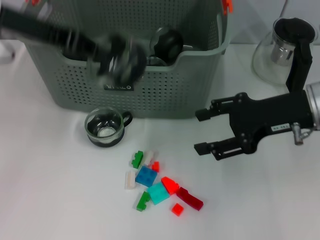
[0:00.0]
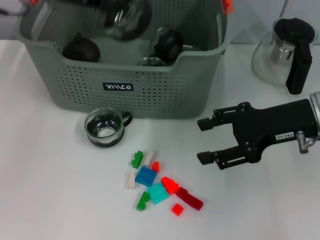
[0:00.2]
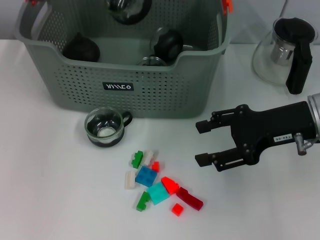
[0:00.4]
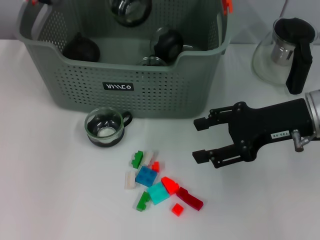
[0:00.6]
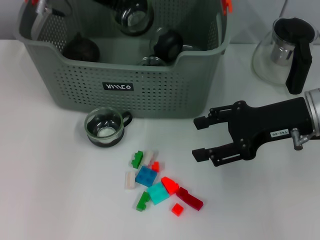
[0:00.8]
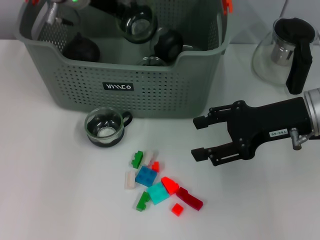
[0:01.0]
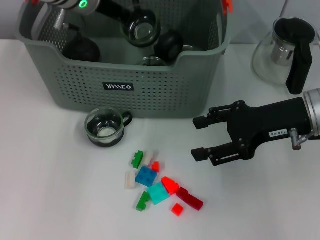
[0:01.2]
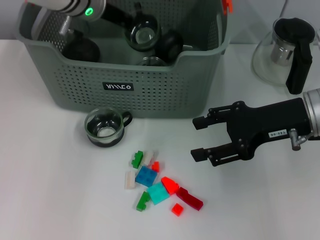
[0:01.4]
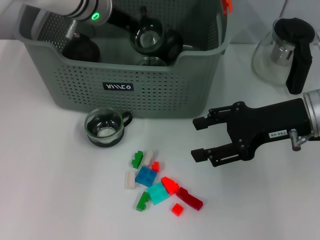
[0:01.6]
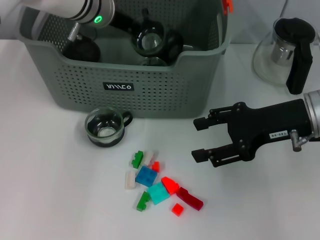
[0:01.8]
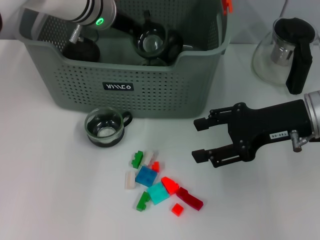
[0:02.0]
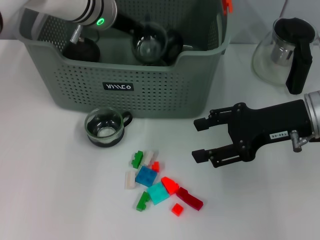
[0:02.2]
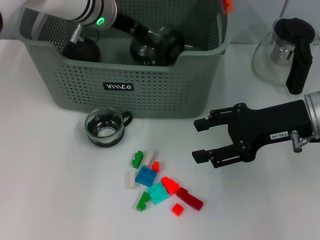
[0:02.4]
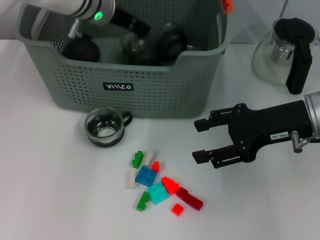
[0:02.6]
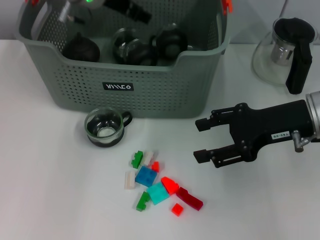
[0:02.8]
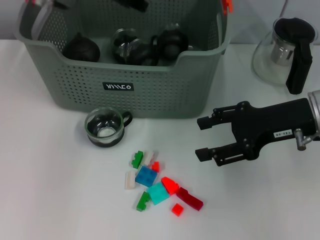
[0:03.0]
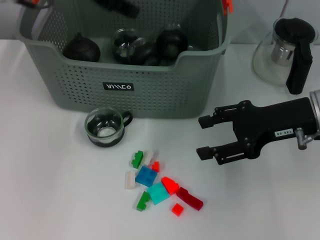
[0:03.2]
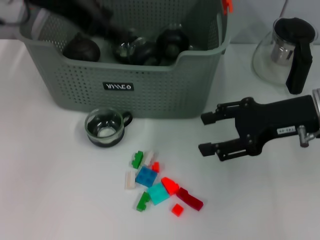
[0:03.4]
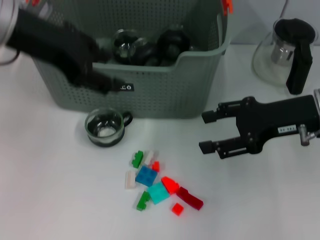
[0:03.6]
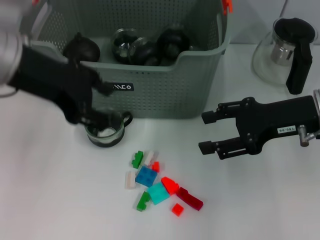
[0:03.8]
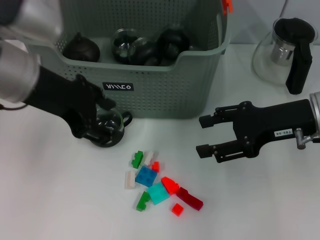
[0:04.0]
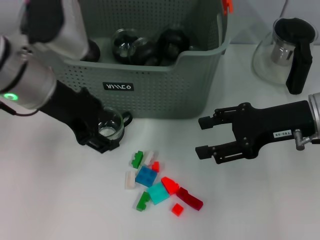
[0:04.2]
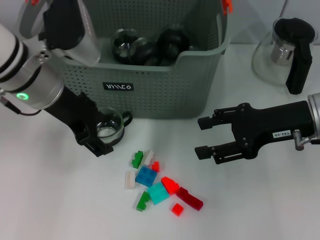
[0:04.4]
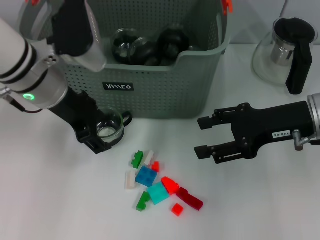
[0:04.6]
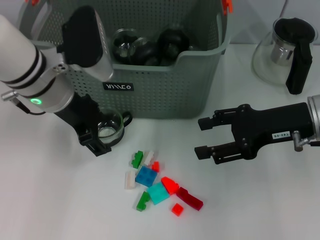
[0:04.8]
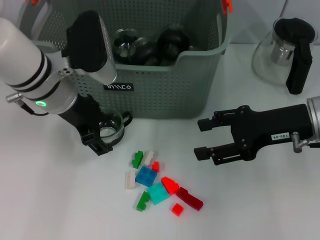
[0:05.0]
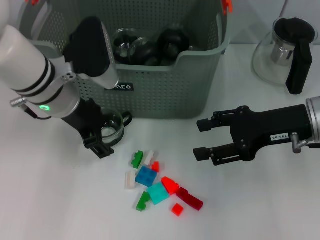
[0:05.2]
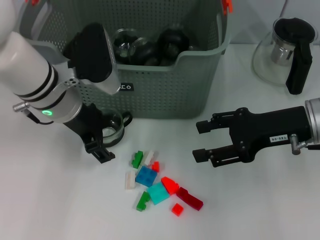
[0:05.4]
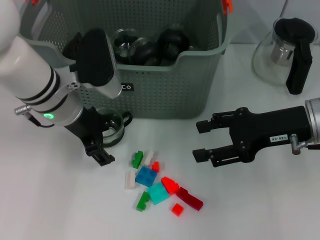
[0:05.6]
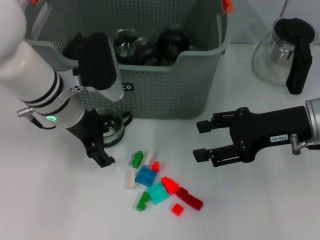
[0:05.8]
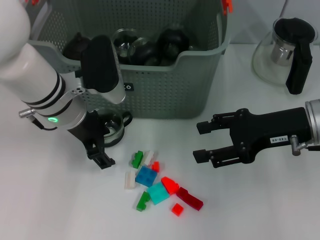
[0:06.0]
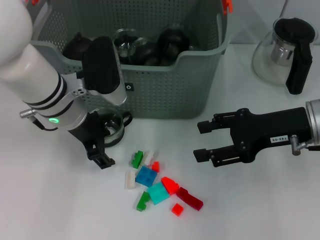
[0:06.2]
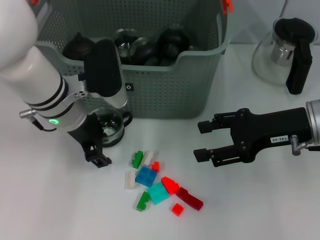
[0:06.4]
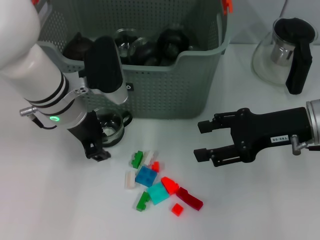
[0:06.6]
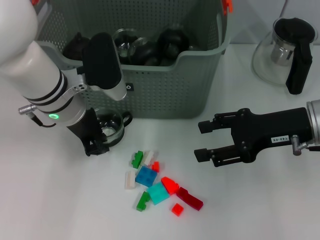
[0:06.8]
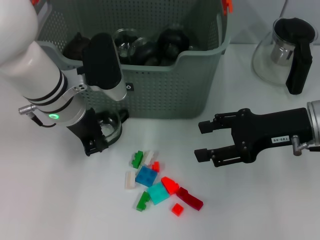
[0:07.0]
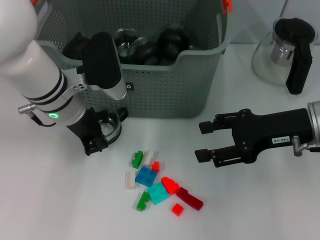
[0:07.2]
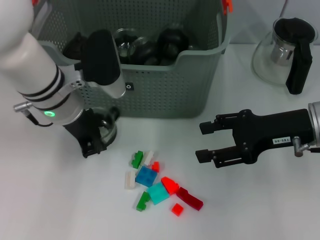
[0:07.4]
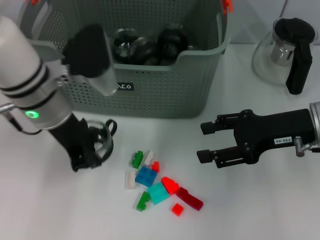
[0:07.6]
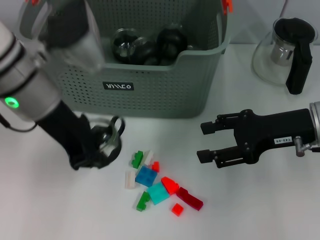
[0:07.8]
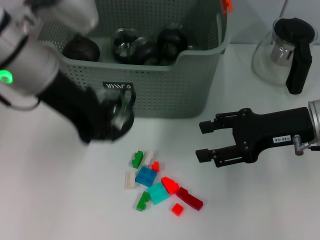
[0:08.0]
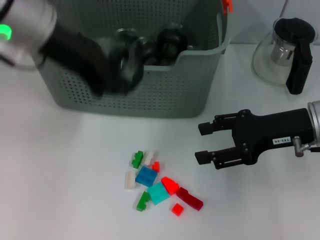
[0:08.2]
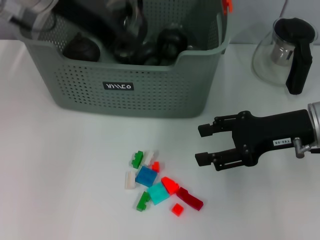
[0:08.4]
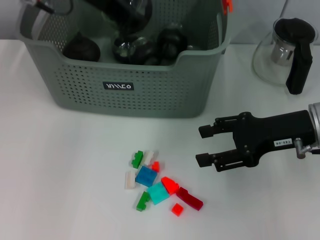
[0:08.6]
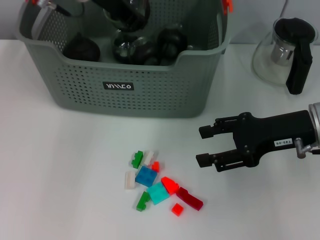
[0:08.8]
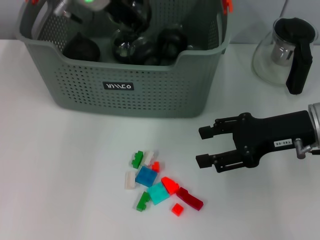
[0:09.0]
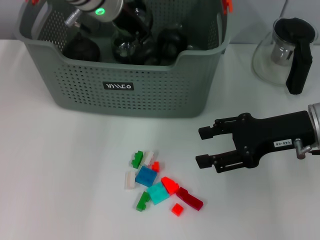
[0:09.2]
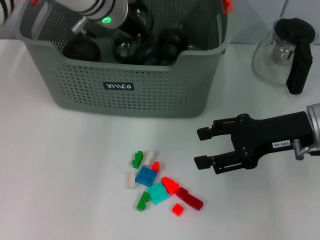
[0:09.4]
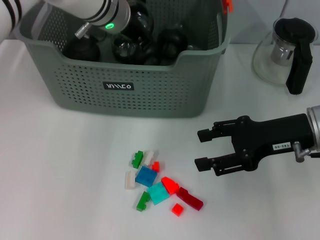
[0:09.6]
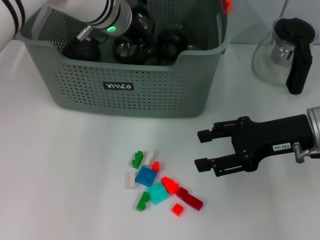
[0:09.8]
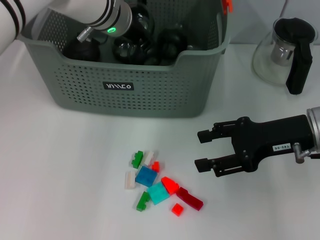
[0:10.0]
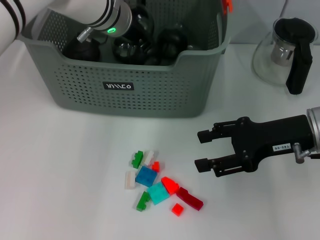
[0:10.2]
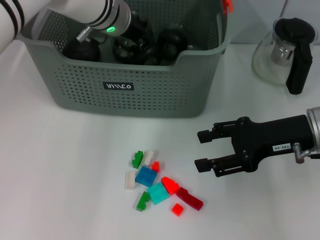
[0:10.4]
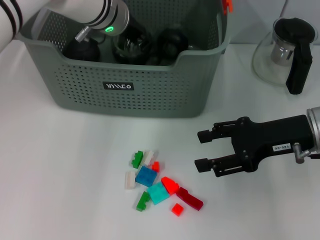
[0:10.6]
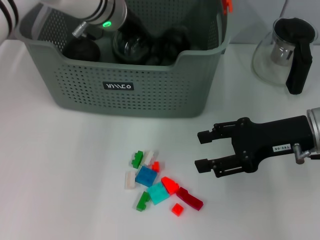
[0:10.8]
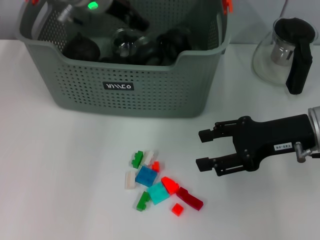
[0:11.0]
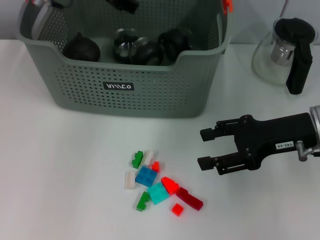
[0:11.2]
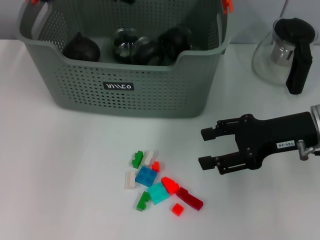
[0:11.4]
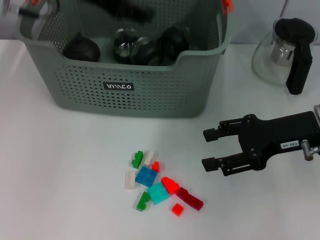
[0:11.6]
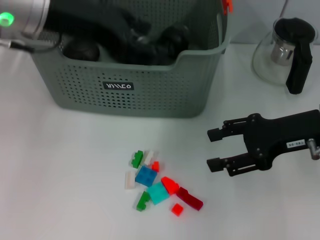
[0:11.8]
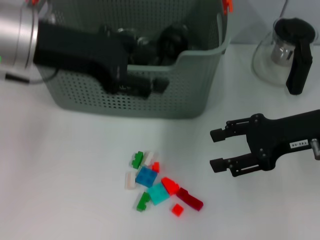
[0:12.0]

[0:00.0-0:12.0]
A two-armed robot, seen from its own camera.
Task of the whole recording: pick up the teacup on the table and place it into the storage bin, pick up the block on the table and place it into the storage bin.
Step, 0.0 to 2.4 s: Place the cup in the storage box with left gripper.
Step, 2.6 to 7.2 s: Grasp the cup with left gripper.
Step, 7.4 to 10.6 s: Place the cup in the storage box with left gripper.
0.0 to 1.6 s: The left gripper heads forward, to the right and downward, covering about 20 cm.
1.6 to 3.0 s: The left gripper travels upward by roughly 5 cm, and opens.
3.0 to 4.4 s: The left gripper goes roughly 15 cm backward and downward.
4.4 to 6.0 s: The left gripper shifts roughly 5 cm downward.
6.0 to 7.6 s: The left gripper closes its fingers.
7.6 to 9.0 s: The left gripper goes some 15 cm forward and upward.
9.0 to 10.4 s: The left gripper travels downward by roughly 5 cm.
10.4 to 12.0 s: The left gripper moves backward, to the left and upward, approximately 20 cm, and opens.

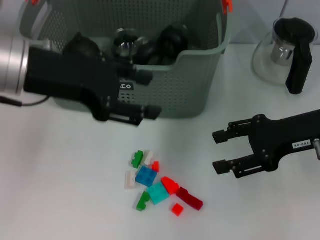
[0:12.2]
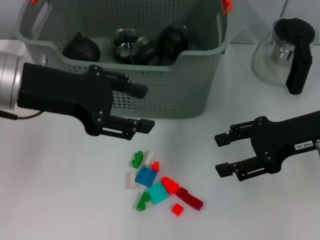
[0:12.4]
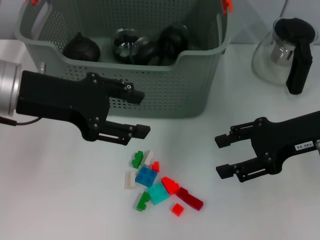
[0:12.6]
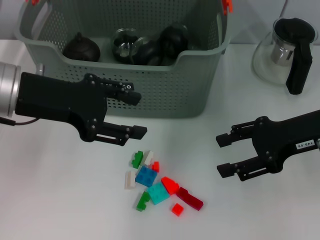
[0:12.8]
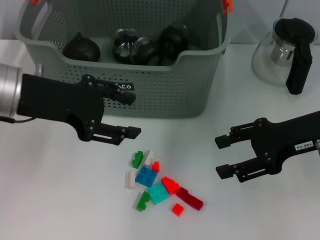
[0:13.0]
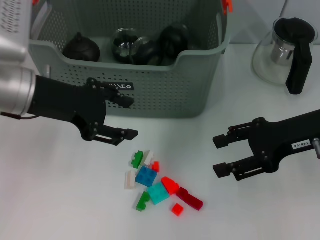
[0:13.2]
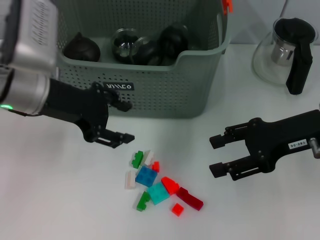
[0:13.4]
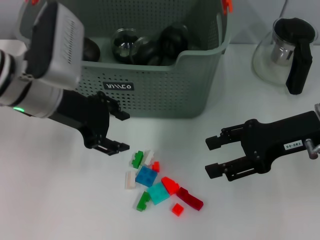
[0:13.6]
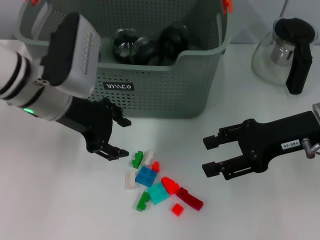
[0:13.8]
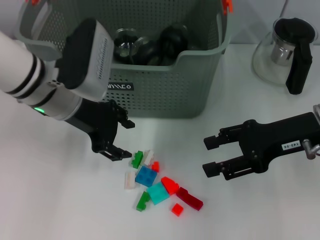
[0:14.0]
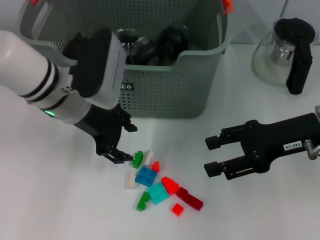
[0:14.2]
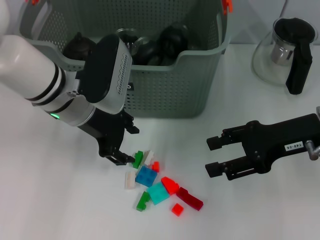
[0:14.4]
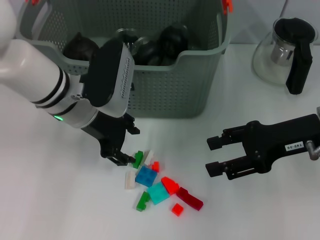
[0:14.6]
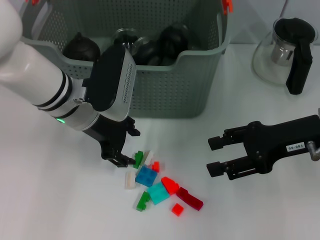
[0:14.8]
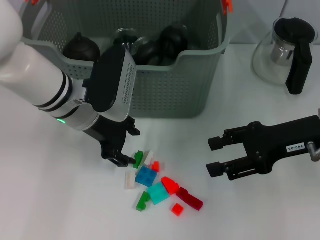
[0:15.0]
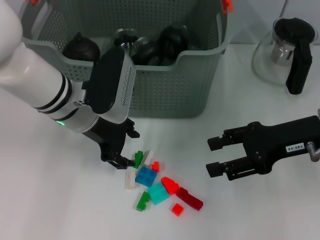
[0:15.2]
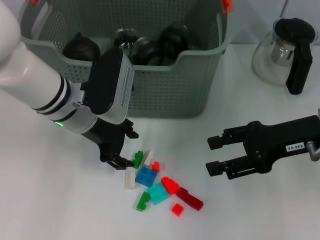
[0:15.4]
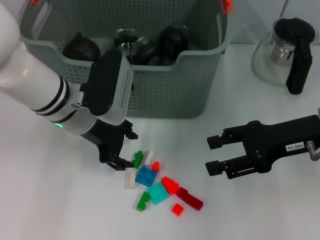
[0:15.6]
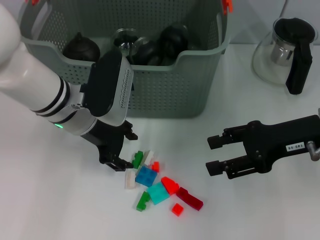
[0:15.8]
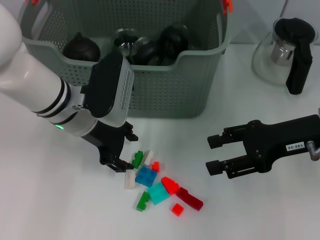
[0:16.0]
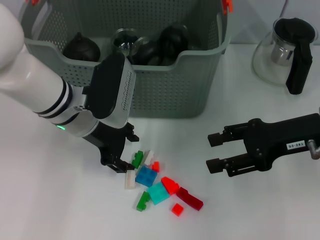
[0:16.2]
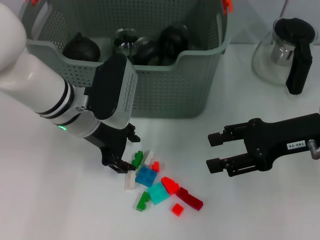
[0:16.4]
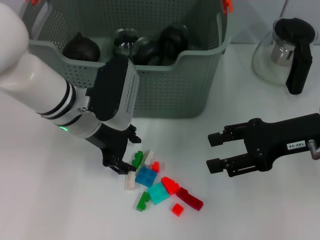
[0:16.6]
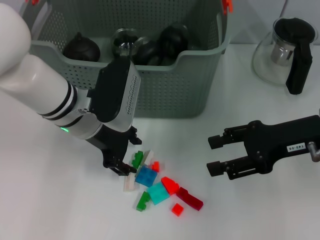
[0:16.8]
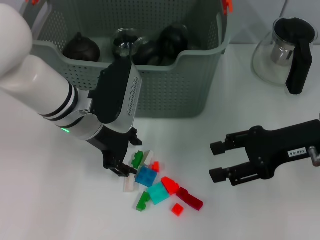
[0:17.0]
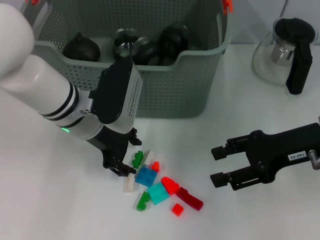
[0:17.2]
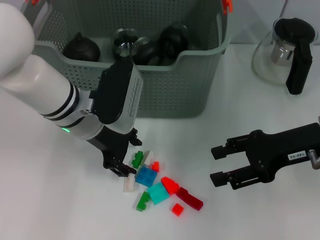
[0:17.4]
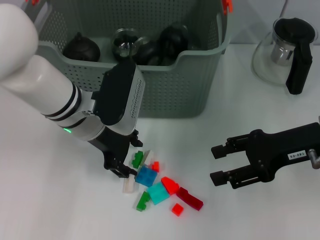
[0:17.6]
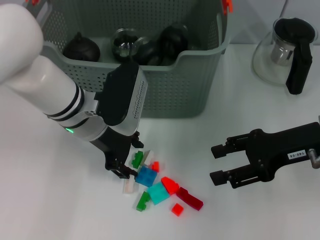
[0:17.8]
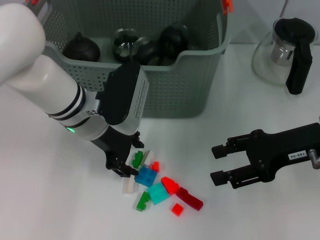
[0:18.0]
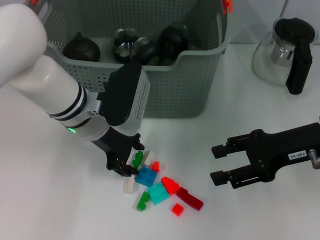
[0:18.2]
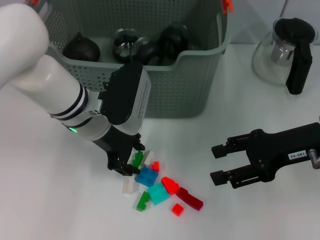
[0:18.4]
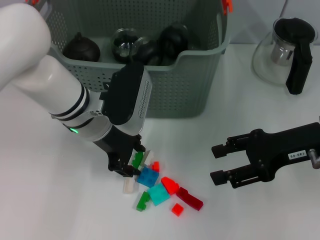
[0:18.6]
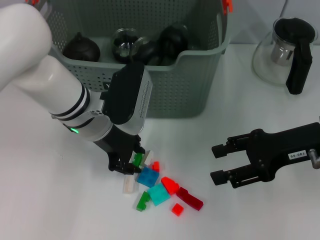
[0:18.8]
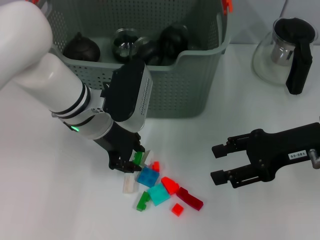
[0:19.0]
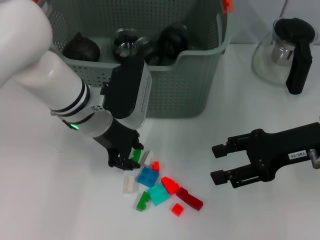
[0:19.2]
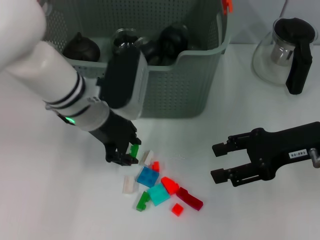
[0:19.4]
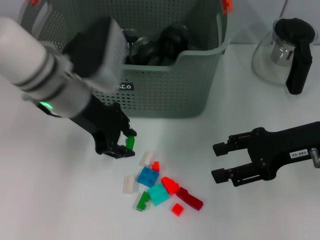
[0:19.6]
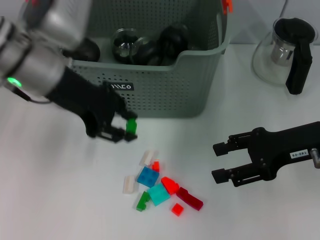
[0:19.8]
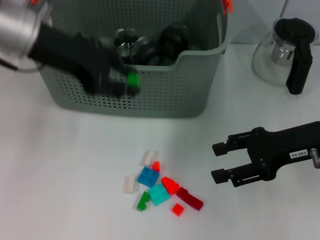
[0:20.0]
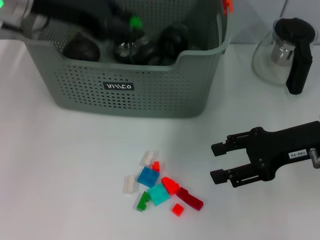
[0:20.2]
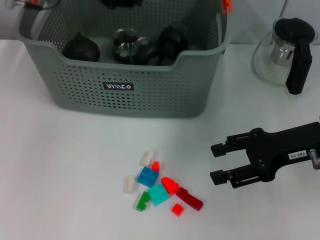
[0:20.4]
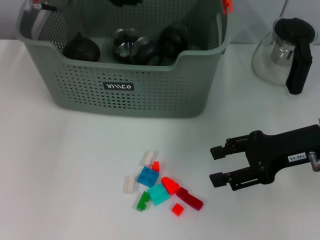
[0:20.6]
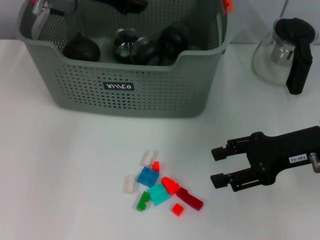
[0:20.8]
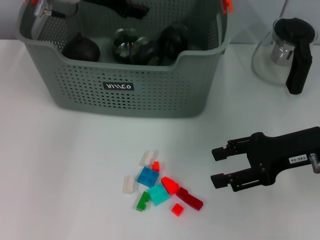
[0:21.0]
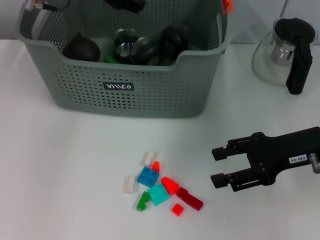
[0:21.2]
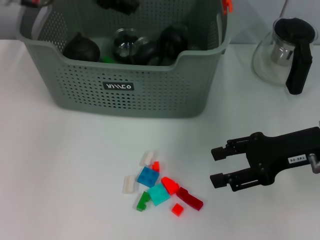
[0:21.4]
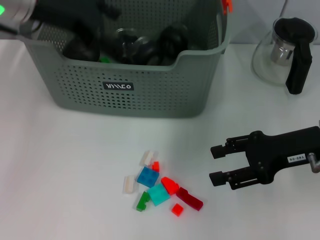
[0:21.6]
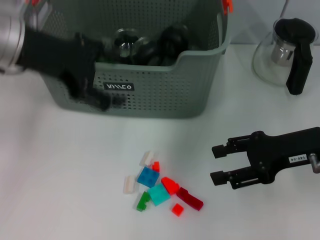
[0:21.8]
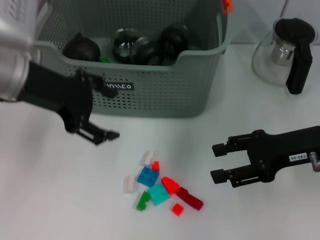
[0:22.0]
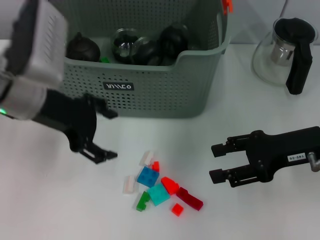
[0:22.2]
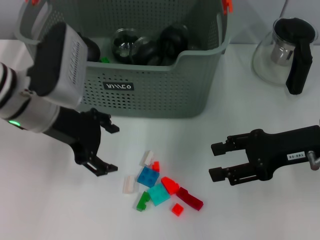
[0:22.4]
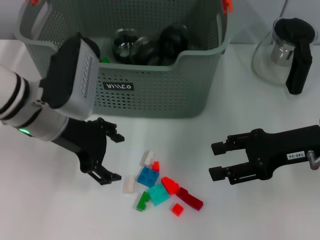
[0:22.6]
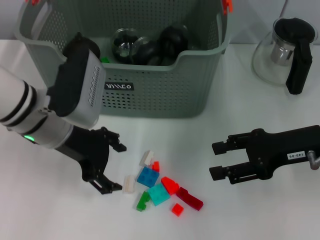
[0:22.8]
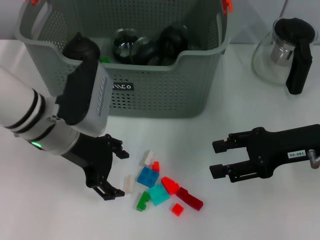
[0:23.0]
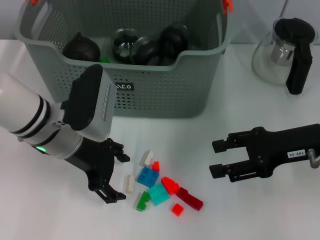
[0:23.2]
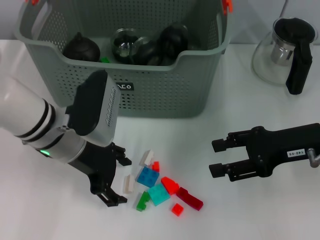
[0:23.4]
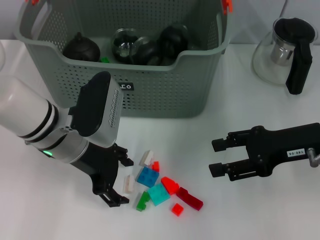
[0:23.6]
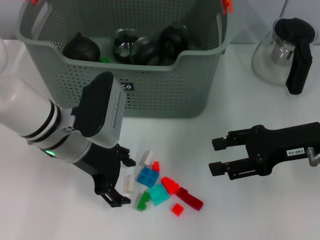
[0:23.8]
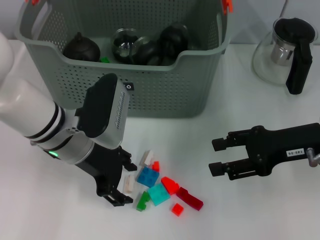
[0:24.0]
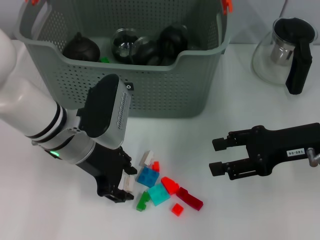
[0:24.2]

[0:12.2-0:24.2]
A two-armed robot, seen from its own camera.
Task of the whole recording: pick up the teacup on the table and place it into the storage bin, pick up the block on the table and place it into the storage bin.
Step, 12.2 to 18.6 s: Grasp the green block with left gripper.
Step, 19.0 to 21.0 s: Place the green block in the storage box with left gripper.
12.2 to 13.8 s: The left gripper heads downward, covering about 10 cm.
13.8 to 15.2 s: The left gripper changes place by some 5 cm.
15.2 to 16.6 s: Both grippers stay put.
16.6 to 18.2 s: The two grippers keep their place.
18.2 to 19.8 s: The left gripper is displaced upward by some 10 cm.
19.8 to 21.2 s: The left gripper moves forward, approximately 10 cm.
21.2 to 22.6 s: The left gripper heads backward and downward, covering roughly 15 cm.
22.6 to 24.2 s: The left gripper shifts by approximately 5 cm.
